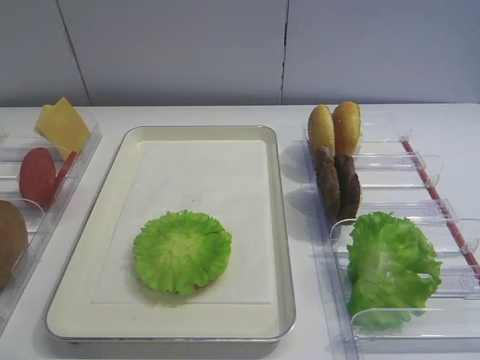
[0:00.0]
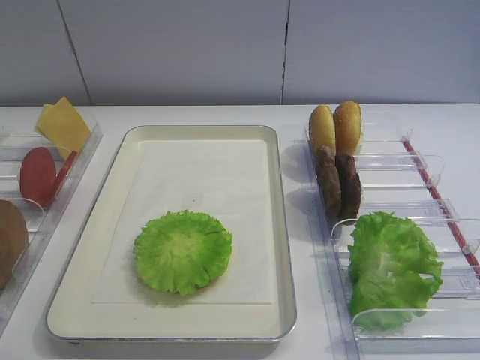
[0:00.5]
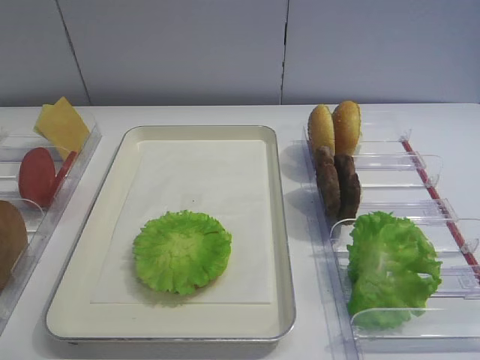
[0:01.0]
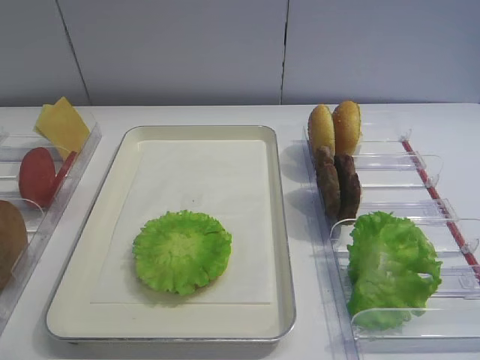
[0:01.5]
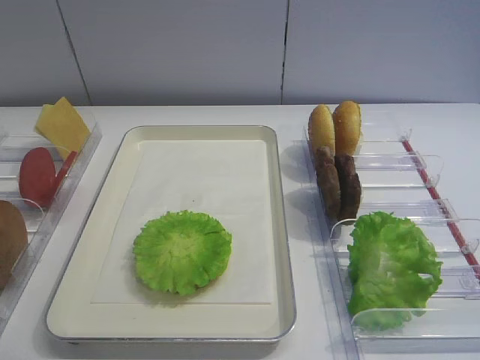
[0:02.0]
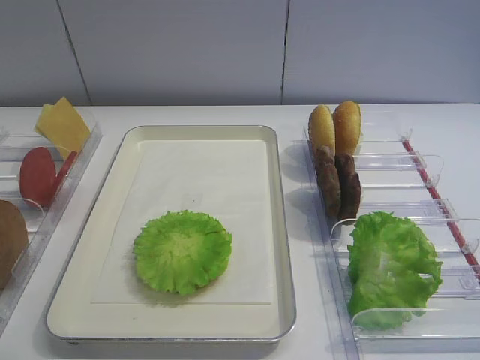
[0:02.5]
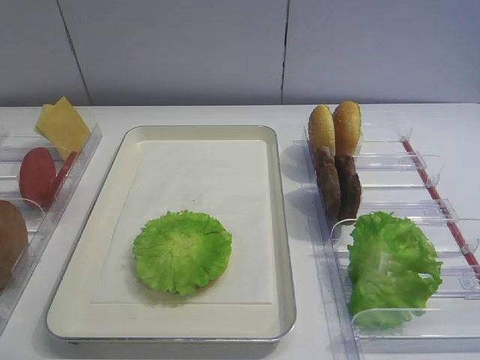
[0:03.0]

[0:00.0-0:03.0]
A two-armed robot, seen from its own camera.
0:01.5 to 0:03.0: Neither gripper changes place.

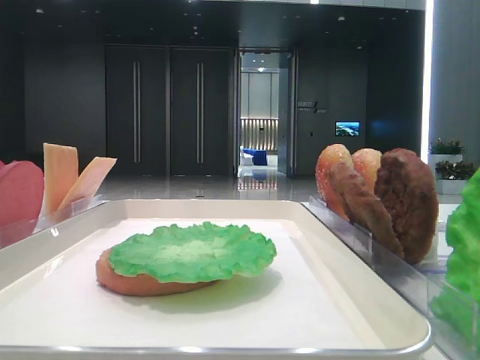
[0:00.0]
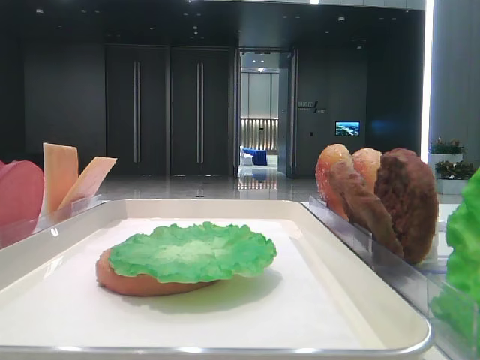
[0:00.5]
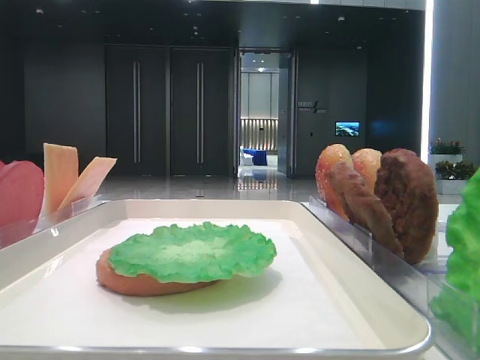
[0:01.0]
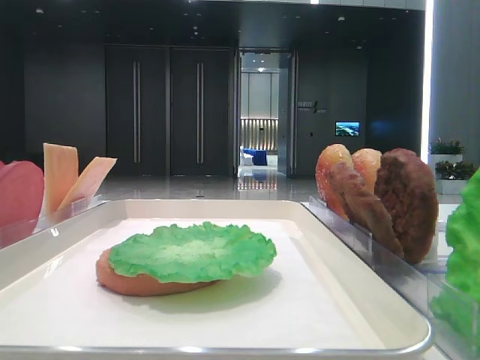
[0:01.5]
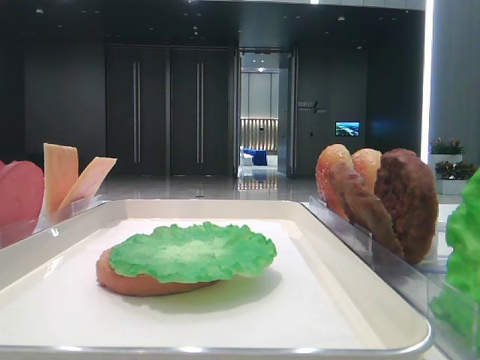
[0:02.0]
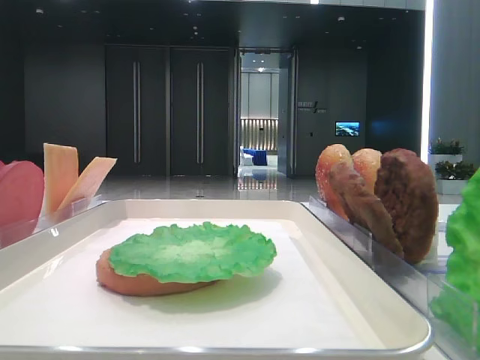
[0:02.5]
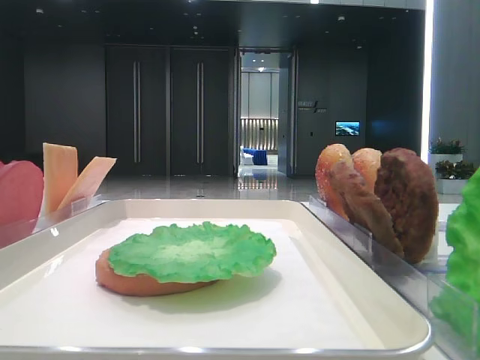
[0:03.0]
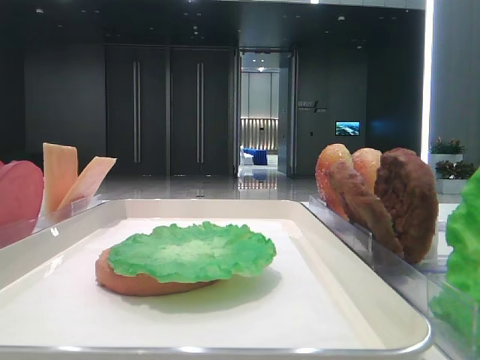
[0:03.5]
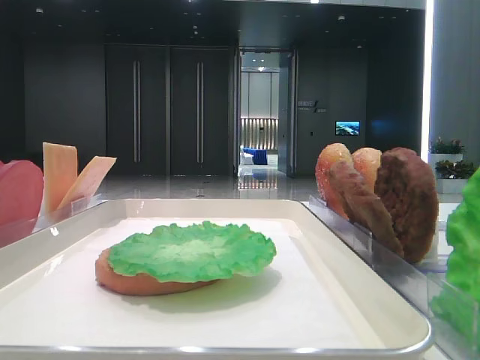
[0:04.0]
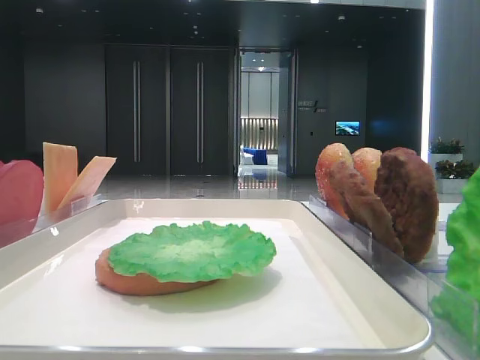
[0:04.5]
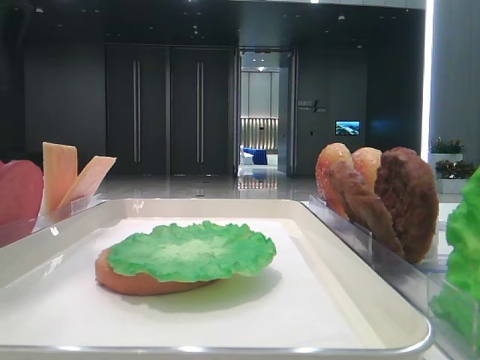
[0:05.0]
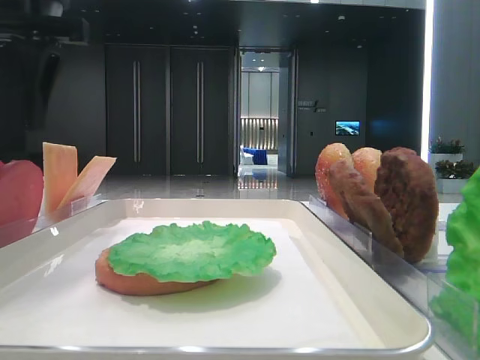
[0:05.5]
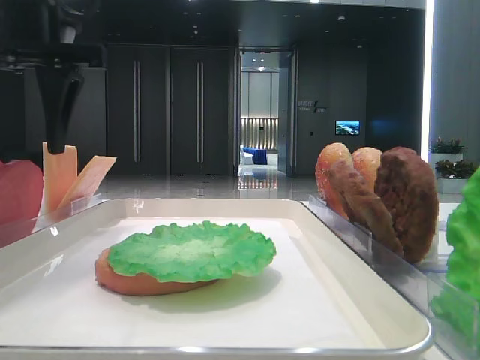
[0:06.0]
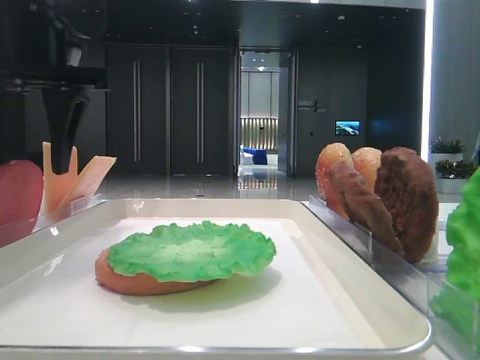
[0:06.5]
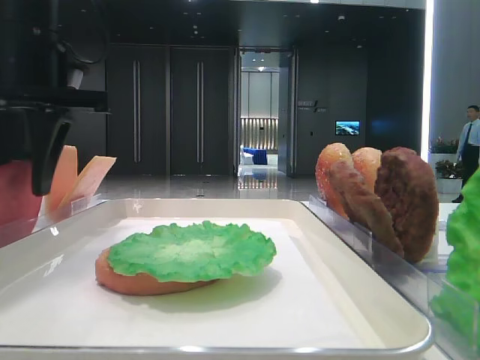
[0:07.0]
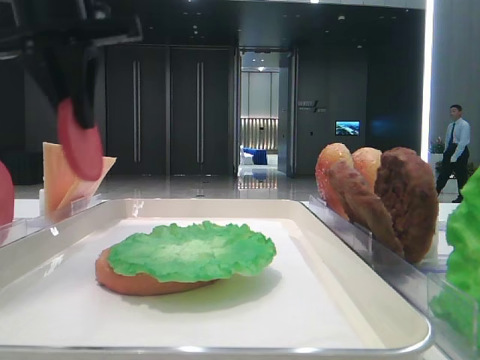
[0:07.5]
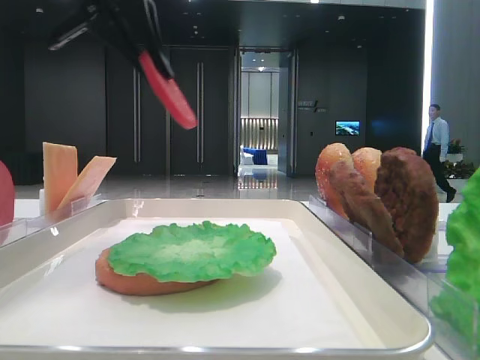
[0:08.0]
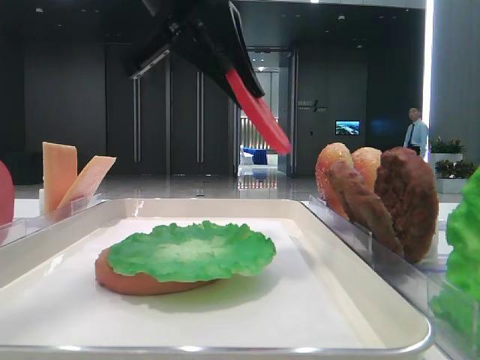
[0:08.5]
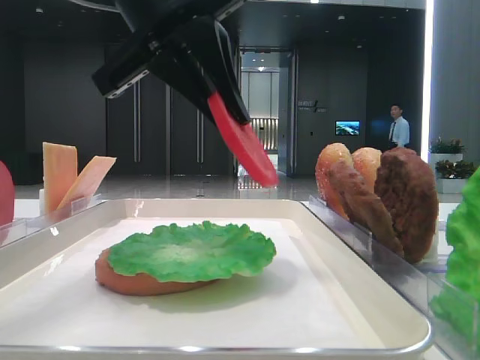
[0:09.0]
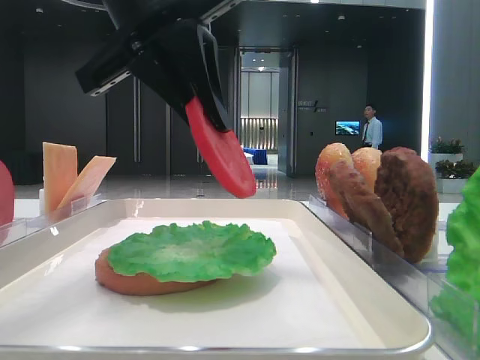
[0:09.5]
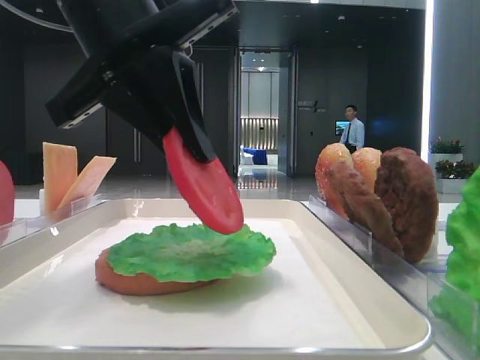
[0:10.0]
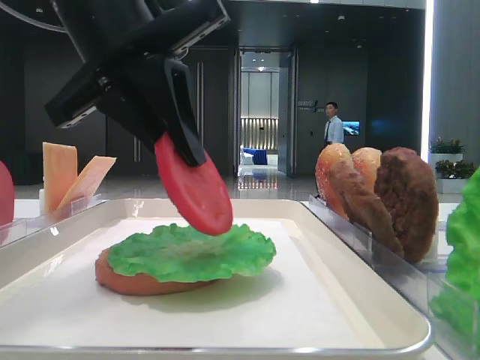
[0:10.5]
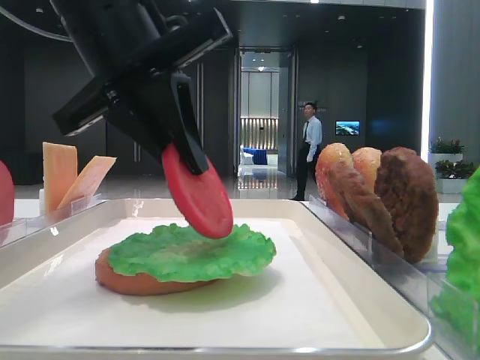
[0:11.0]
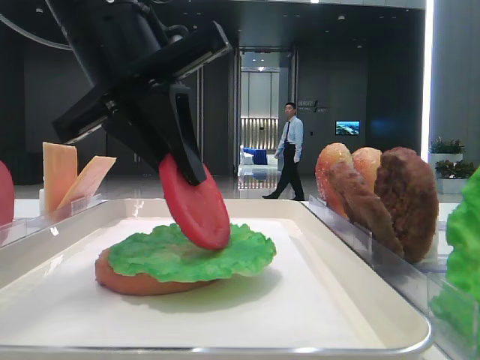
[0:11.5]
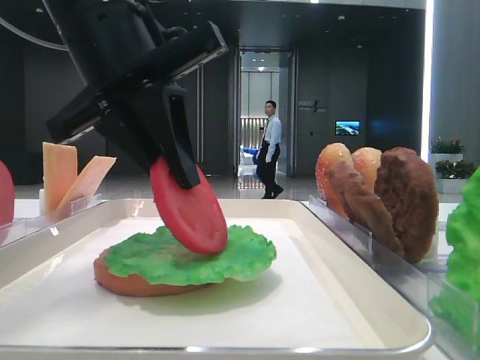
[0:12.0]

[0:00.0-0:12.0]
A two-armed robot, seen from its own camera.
Step, 0:00.0 to 0:07.0: Pick up the tomato slice with the left hand.
0:04.0 to 0:06.0: The left gripper heads to the right, forward and downward, covering roughly 20 cm.
0:06.0 to 0:08.0: The left gripper shifts by roughly 5 cm, and closes up.
0:08.0 to 0:10.0: The left gripper moves downward and backward, roughly 10 cm.
0:10.0 to 0:12.0: The grippers make only small movements.

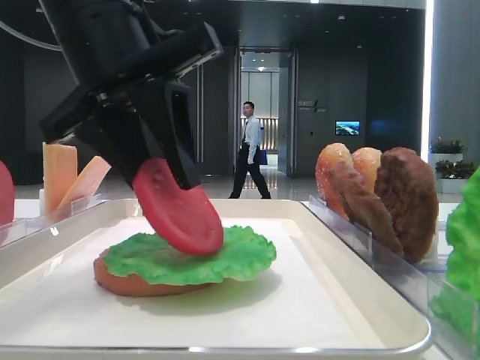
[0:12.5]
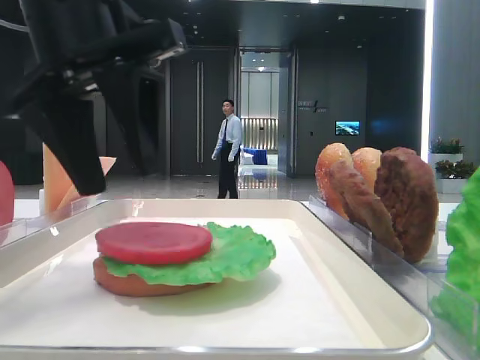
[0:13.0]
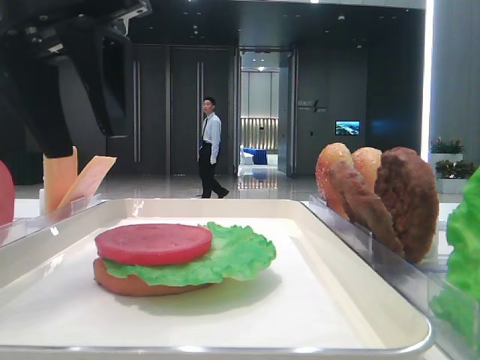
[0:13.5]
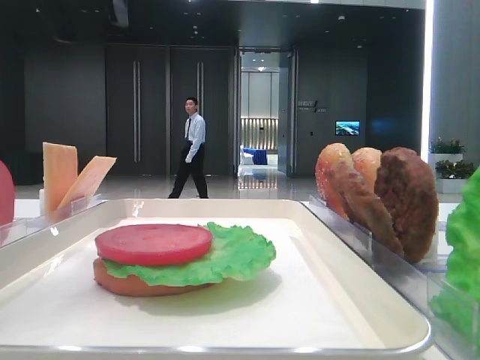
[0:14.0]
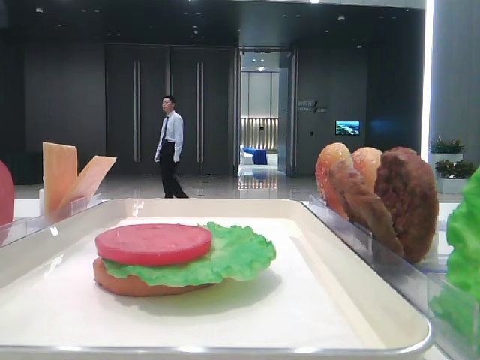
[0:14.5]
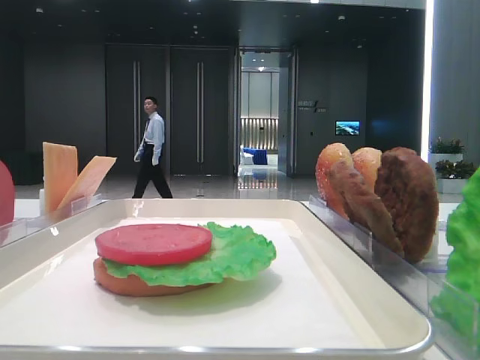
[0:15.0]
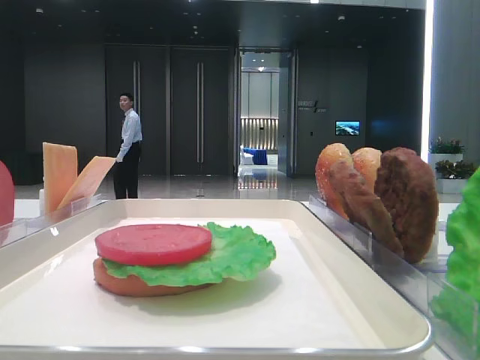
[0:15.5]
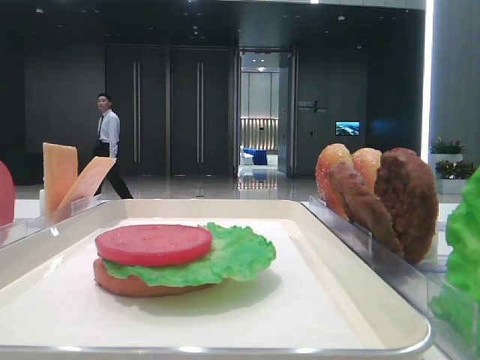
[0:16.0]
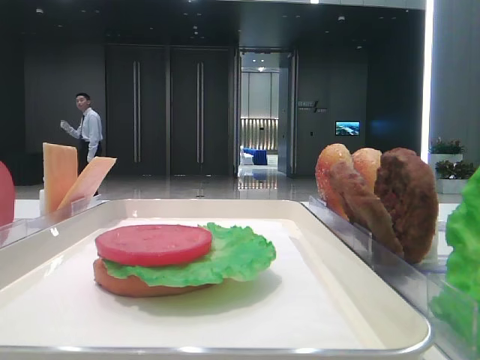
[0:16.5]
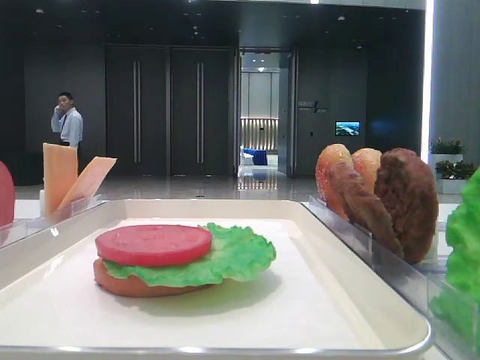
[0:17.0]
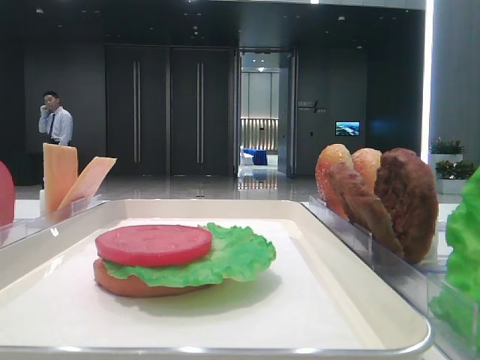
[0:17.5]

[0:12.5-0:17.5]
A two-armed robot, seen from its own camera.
0:12.5 to 0:15.0: The left gripper heads to the left and upward, covering about 30 cm.
0:15.0 to 0:17.5: The left gripper goes some 30 cm backward.
